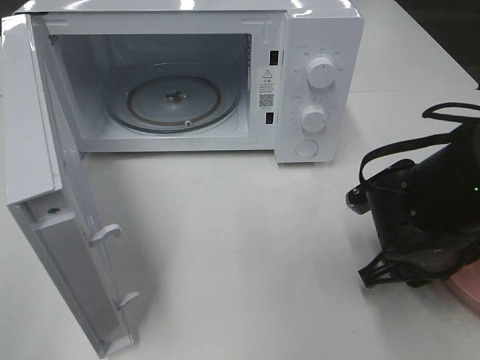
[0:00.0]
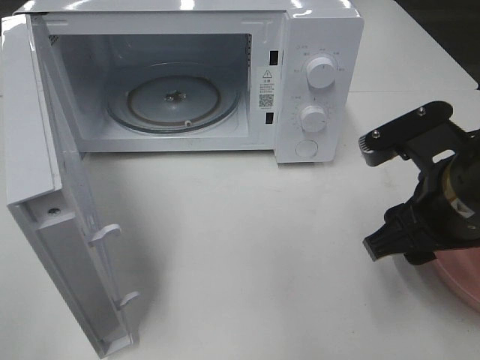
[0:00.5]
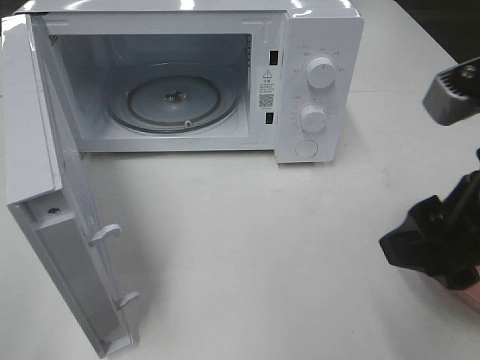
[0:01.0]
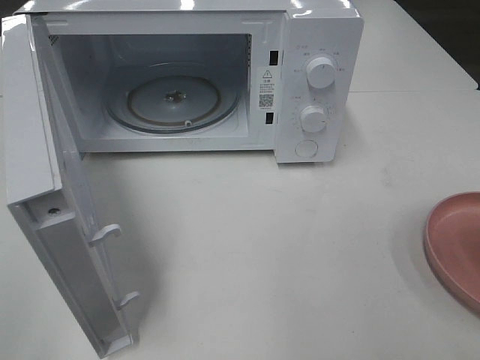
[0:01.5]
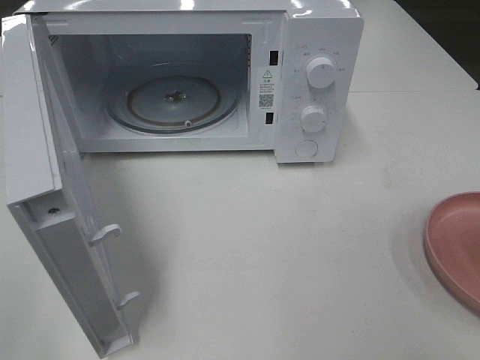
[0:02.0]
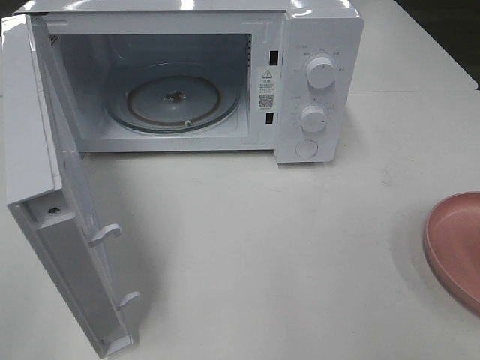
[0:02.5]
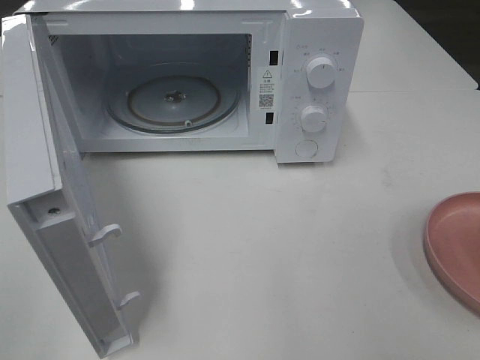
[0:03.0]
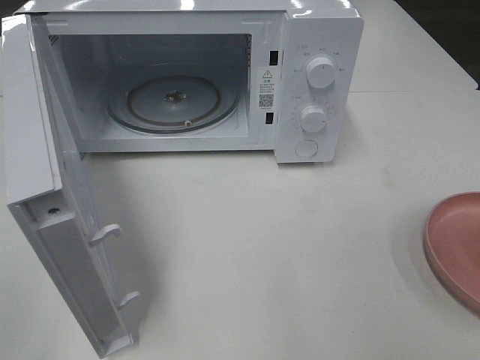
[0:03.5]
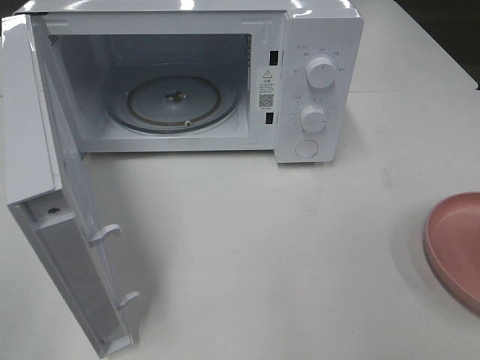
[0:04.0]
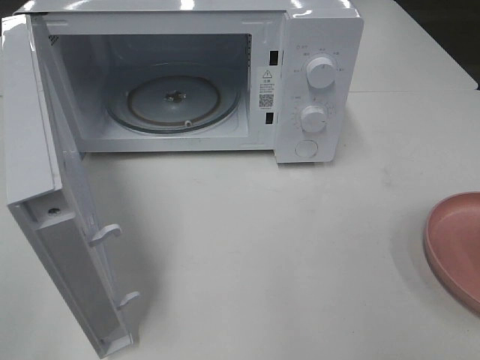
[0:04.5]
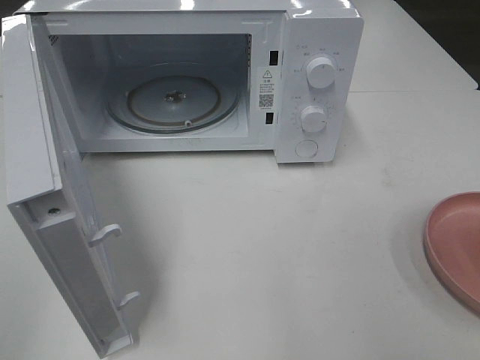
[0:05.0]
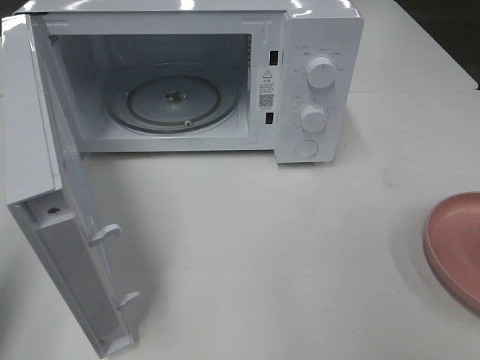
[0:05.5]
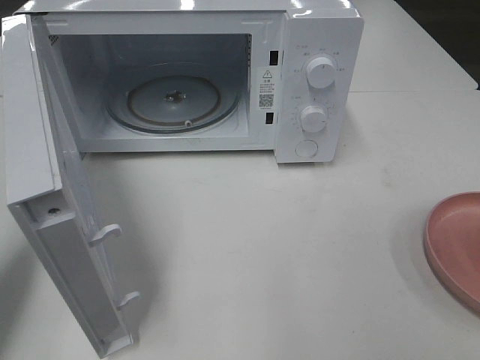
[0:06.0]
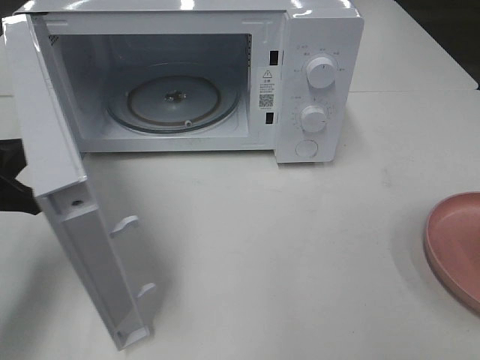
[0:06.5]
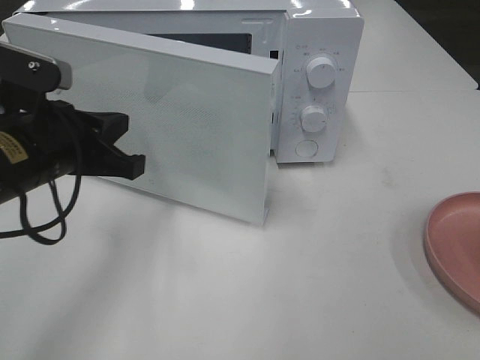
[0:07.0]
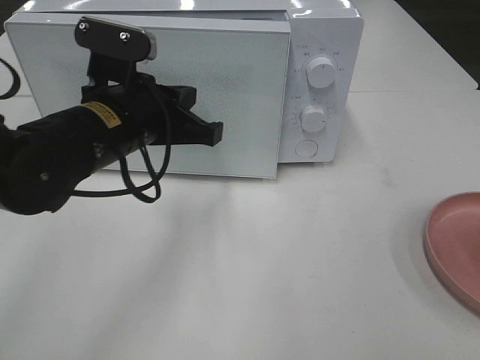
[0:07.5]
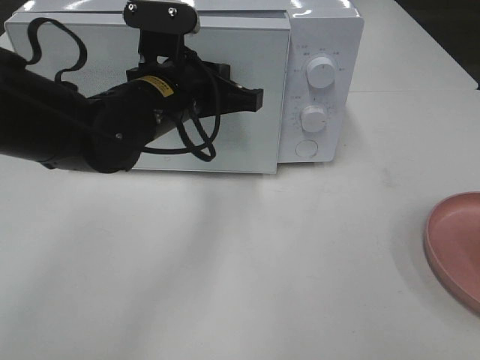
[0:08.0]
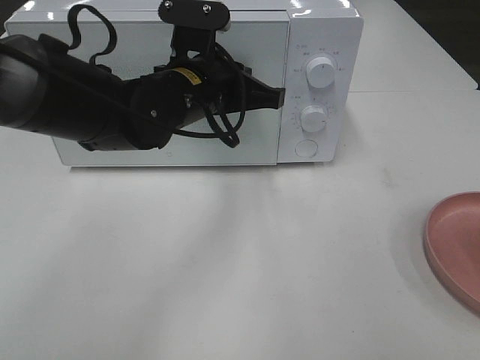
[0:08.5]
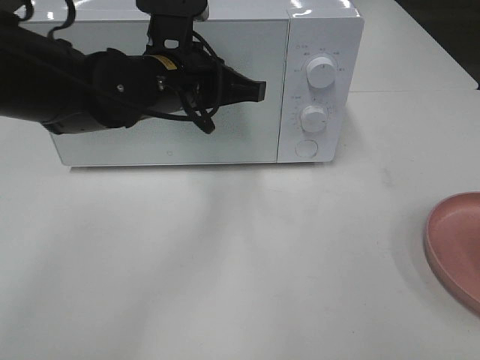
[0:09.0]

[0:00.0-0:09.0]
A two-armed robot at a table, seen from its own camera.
Task of the whole recording: Heat the burger.
Step, 0.0 to 9.0 s: Left hand: close the microwave door.
0.0 to 2.0 s: The right gripper is displaced upward, backward and to the right by roughly 30 cm, and opens its fingers.
4.5 to 7.0 s: The left gripper moves forward, to the right and downward, roughly 30 cm, and closes its fingers.
7.0 to 9.0 s: The left gripper goes some 15 cm to the right and forward.

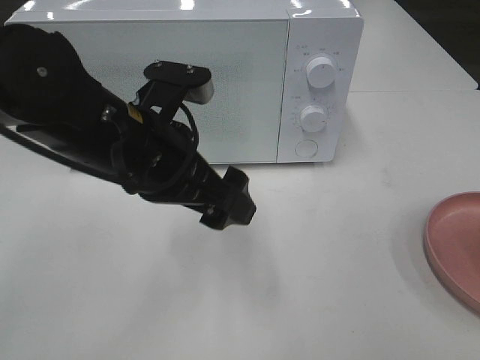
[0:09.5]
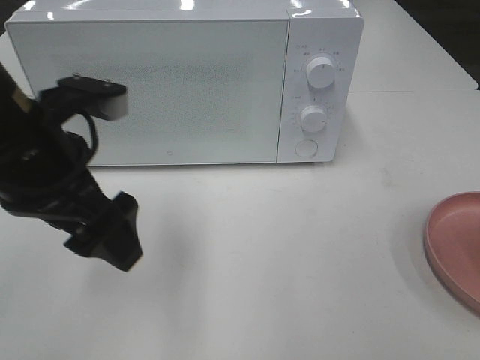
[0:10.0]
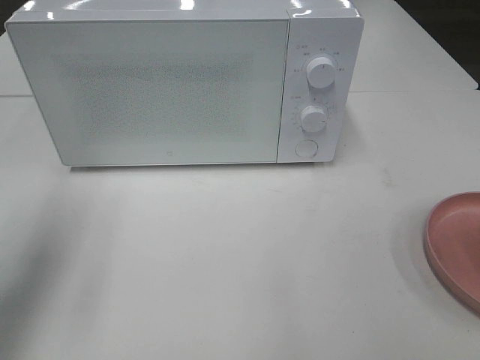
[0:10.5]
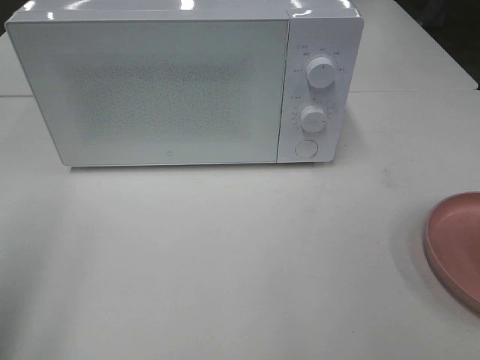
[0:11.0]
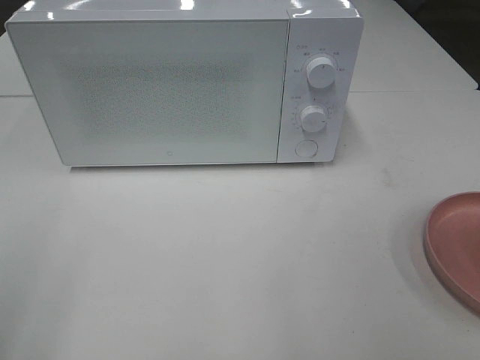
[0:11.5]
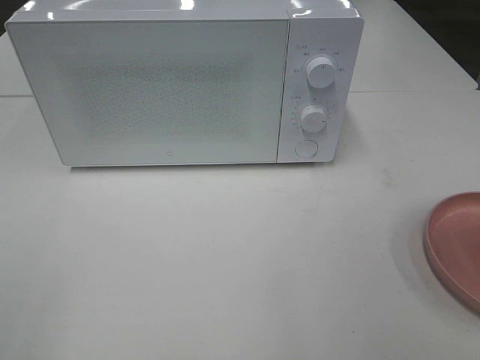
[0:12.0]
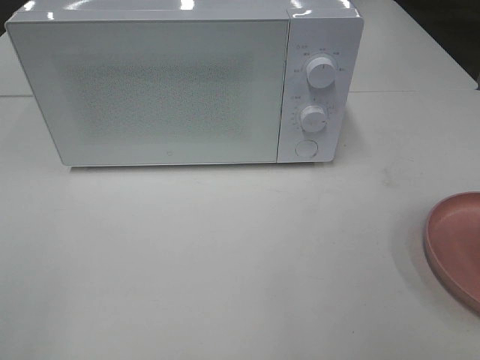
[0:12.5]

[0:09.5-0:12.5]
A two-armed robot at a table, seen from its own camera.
Task of the whole recording: Heat the burger.
9.5 to 11.0 s: The left gripper travels to the left and backward by roughly 25 cm.
11.0 to 12.5 s: The left gripper moves backward, about 10 cm.

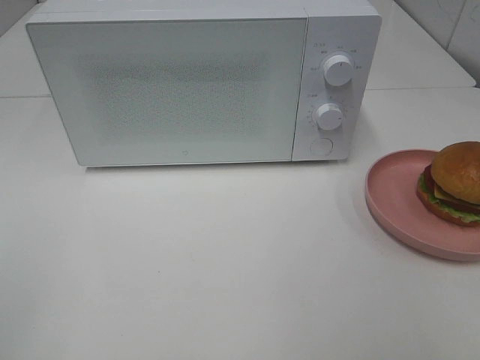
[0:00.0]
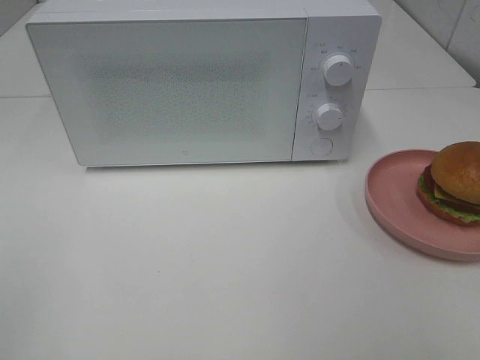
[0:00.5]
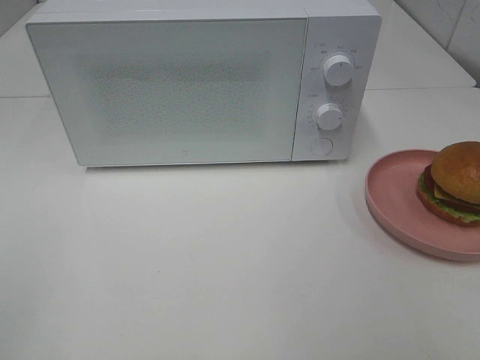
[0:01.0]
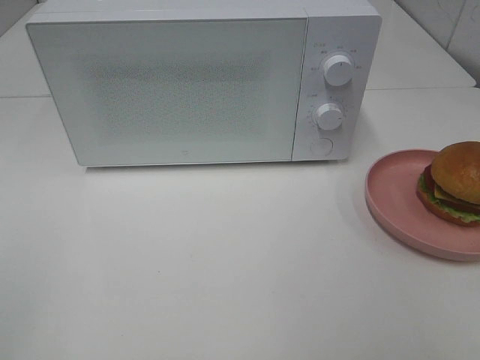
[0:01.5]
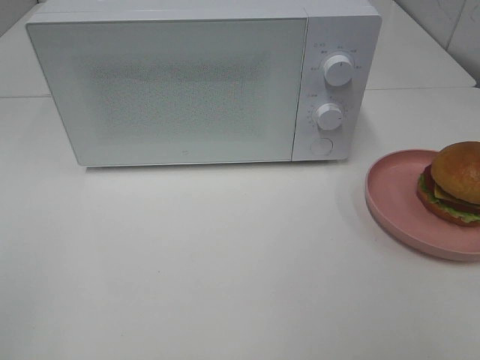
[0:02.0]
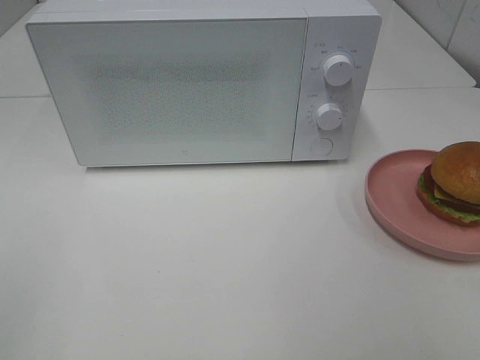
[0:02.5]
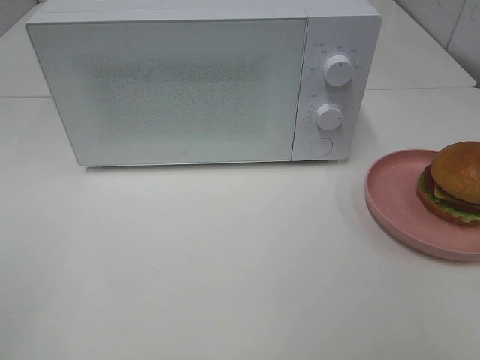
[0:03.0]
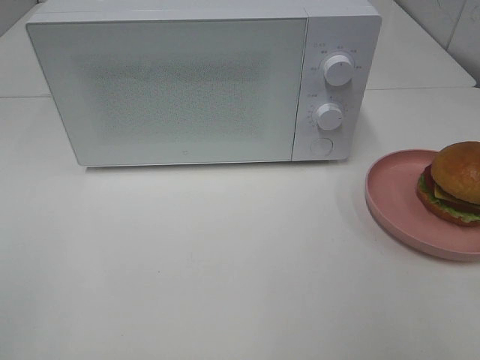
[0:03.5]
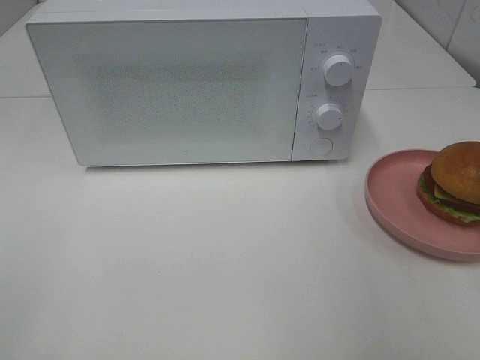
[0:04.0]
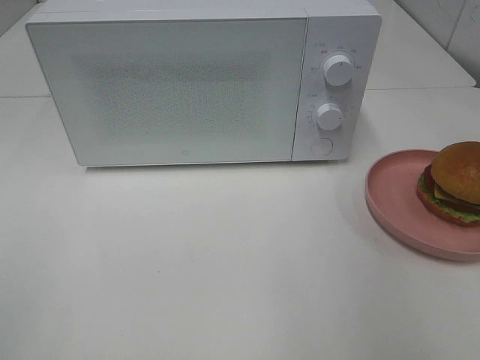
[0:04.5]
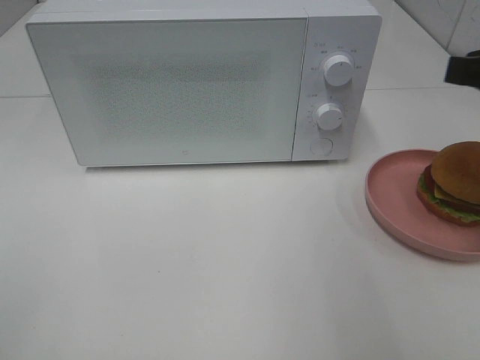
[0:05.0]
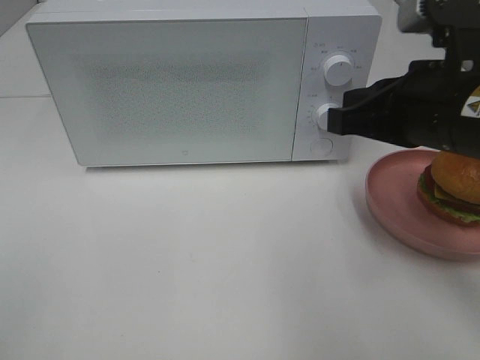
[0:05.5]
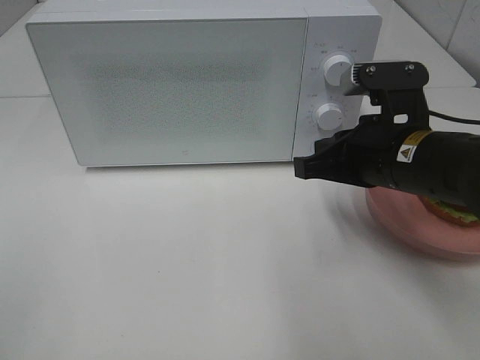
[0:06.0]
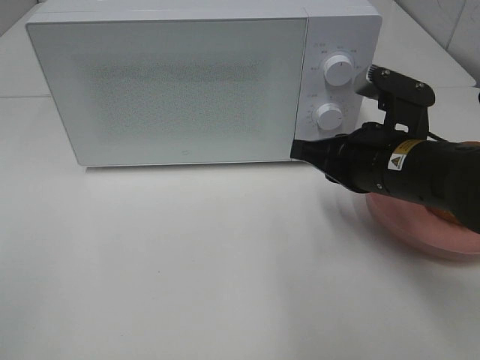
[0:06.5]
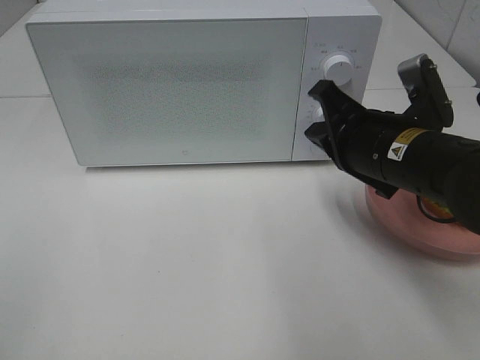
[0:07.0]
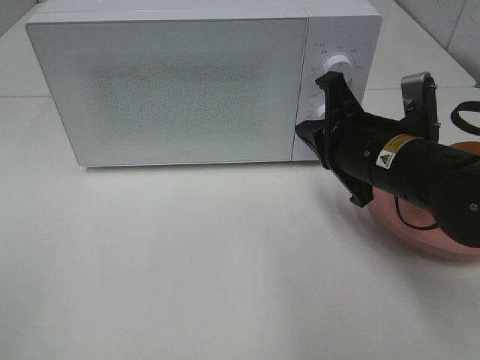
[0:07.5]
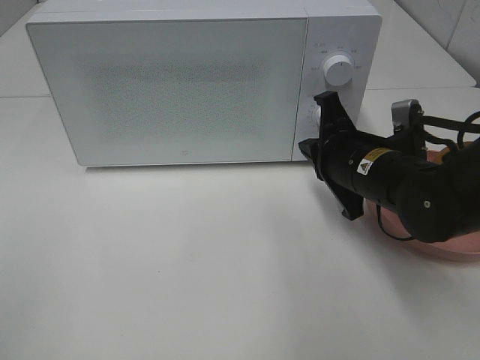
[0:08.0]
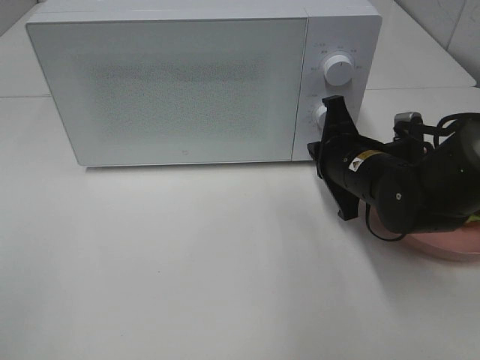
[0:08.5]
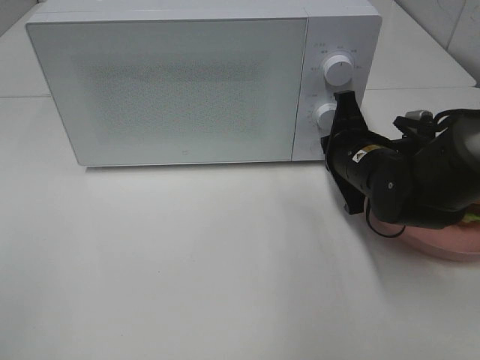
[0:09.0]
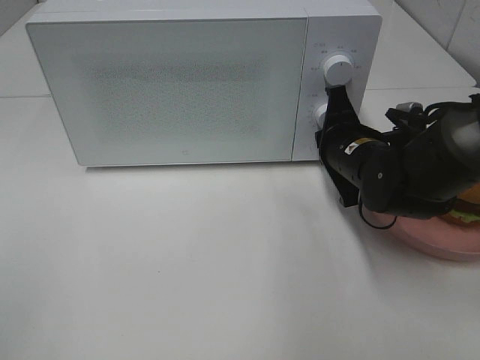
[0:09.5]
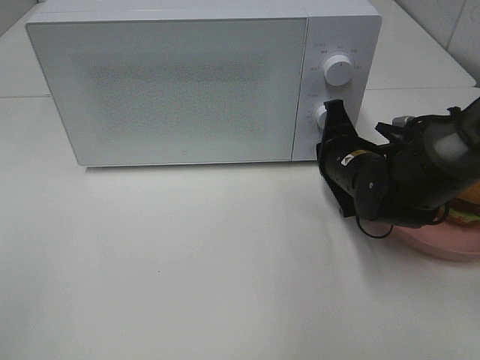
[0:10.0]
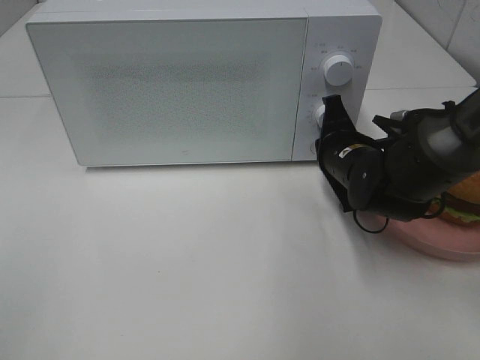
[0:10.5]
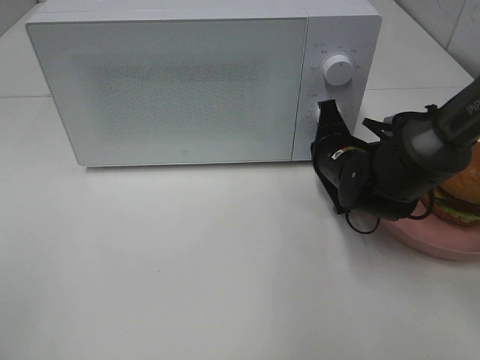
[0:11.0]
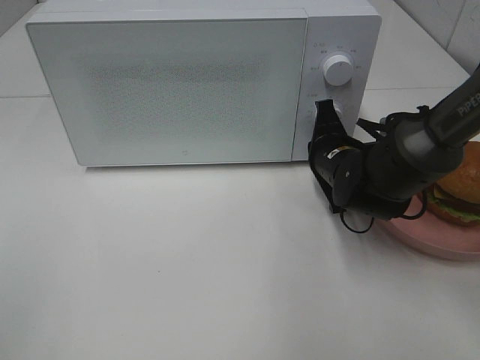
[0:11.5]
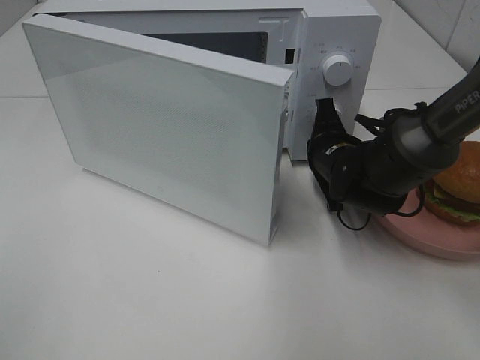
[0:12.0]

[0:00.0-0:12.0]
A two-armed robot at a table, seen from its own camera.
Task of the whole recording: Heat the burger.
0.0 to 2.0 s: Neither gripper changes place.
4.0 to 6.0 s: The right gripper moves to the left, downward and forward, approximately 20 cm, and closes up.
6.0 to 8.0 s: The right gripper changes place by about 5 cm.
8.0 to 10.0 s: The right gripper moves about 5 cm.
10.0 to 12.0 s: The grippers make only small movements.

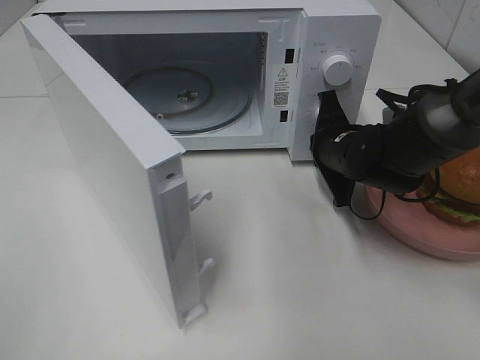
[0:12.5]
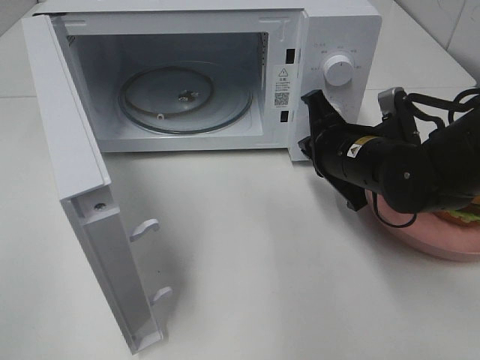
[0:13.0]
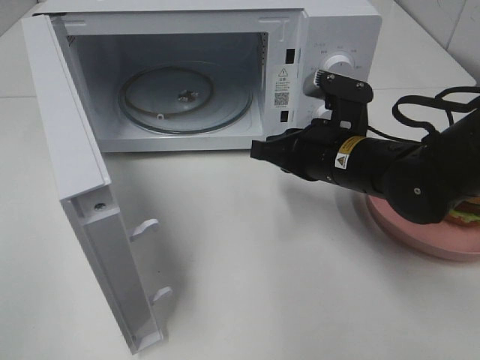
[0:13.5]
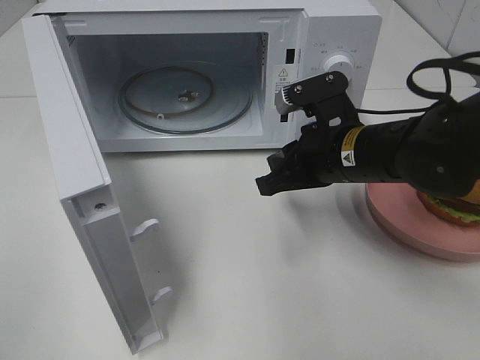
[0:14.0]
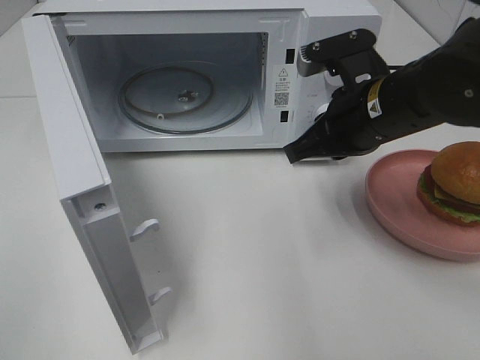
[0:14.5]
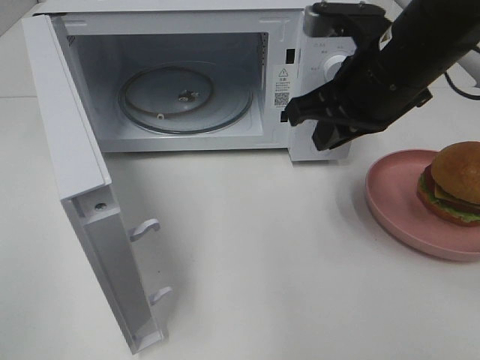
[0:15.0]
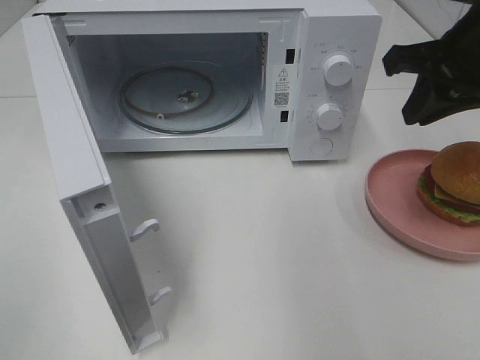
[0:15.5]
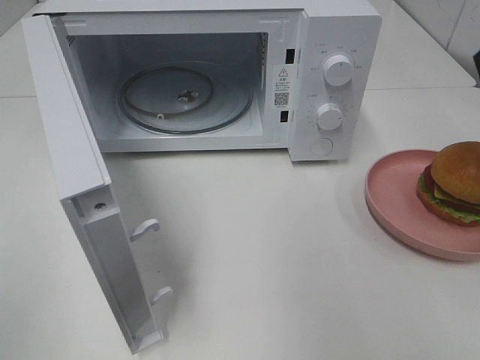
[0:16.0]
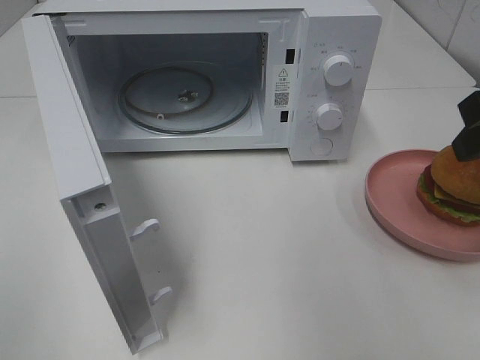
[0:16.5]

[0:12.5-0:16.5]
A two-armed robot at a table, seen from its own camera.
Task of the whole recording: Heat the burger.
12.5 to 14.5 s: The right gripper moves upward and backward, roughly 10 cm.
14.5 to 16.5 s: The right gripper travels to the right, upward and backward by about 15 cm, and opens its fingers.
